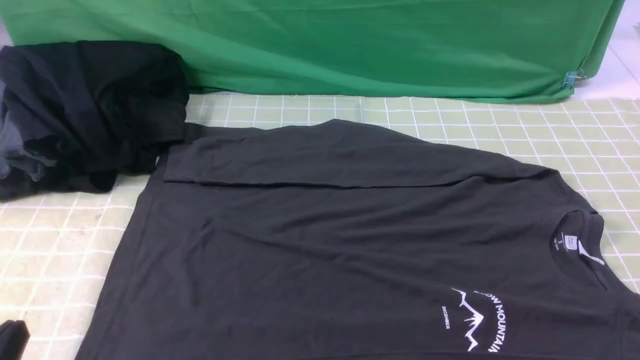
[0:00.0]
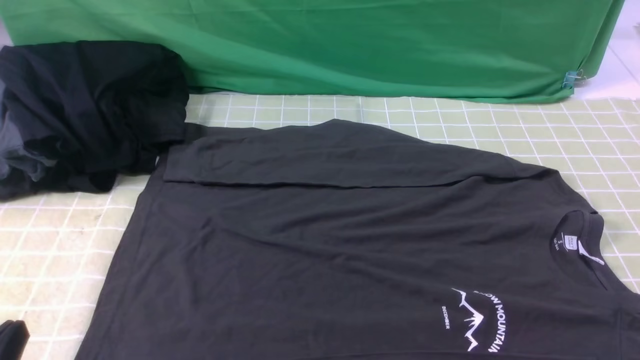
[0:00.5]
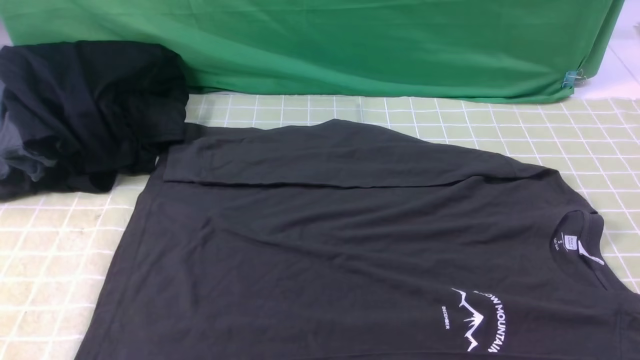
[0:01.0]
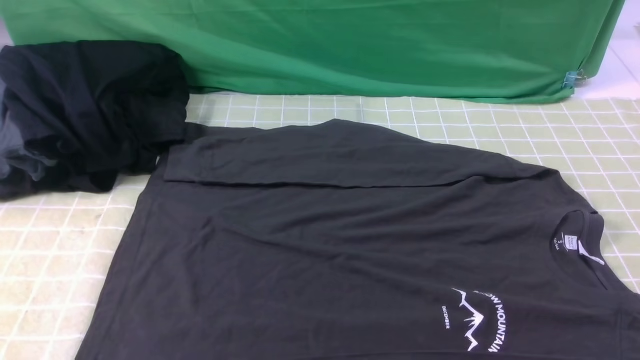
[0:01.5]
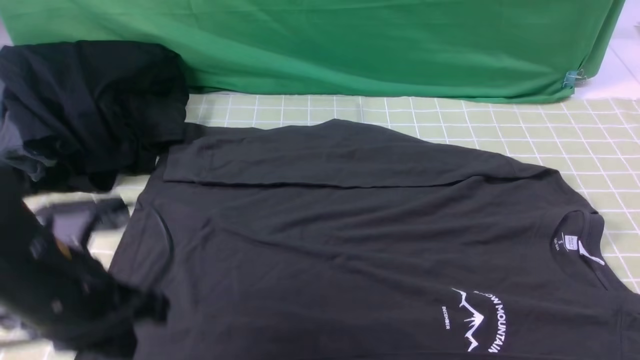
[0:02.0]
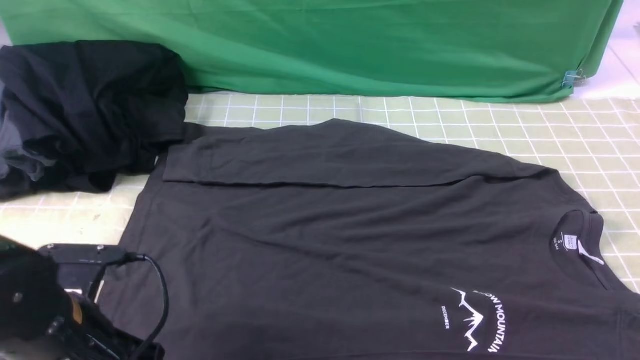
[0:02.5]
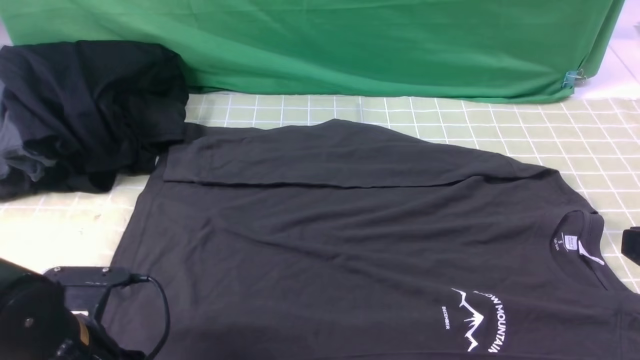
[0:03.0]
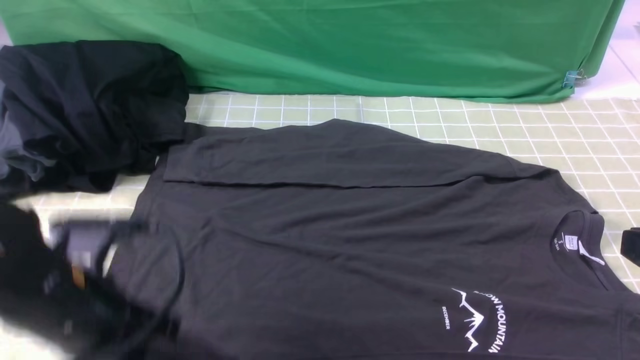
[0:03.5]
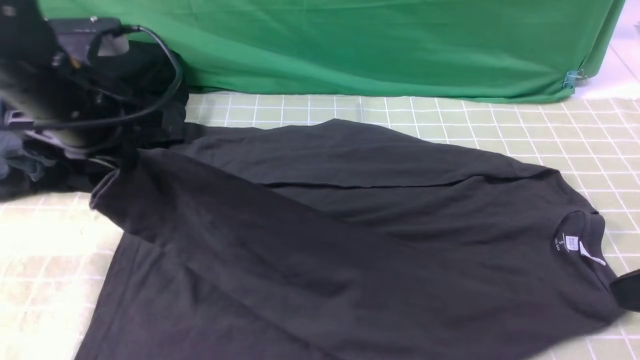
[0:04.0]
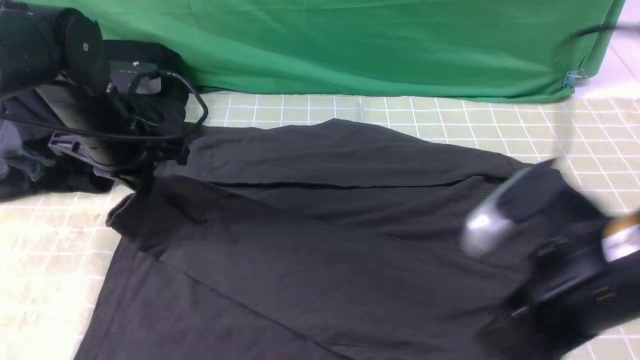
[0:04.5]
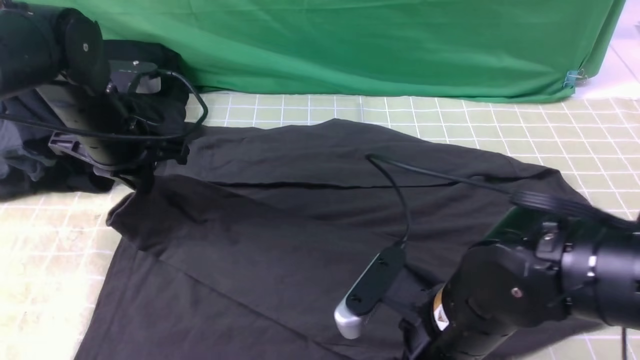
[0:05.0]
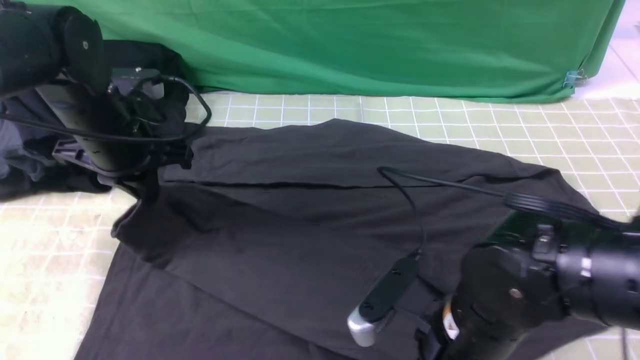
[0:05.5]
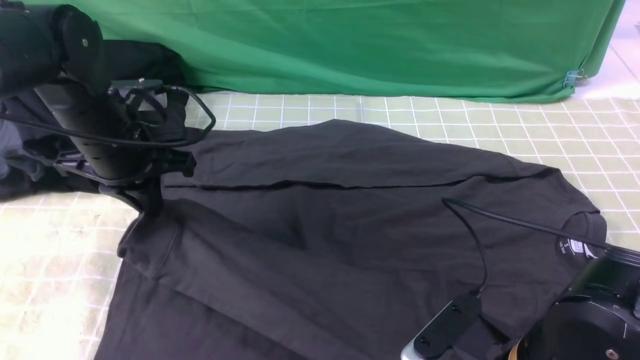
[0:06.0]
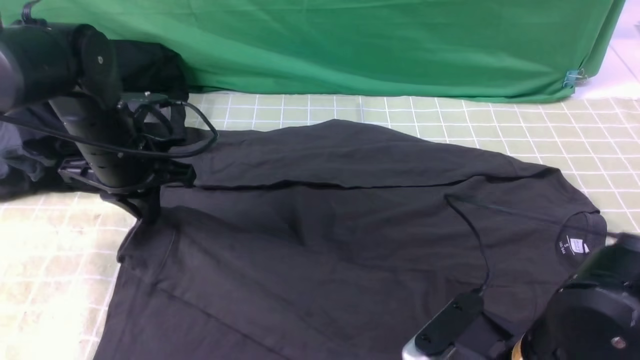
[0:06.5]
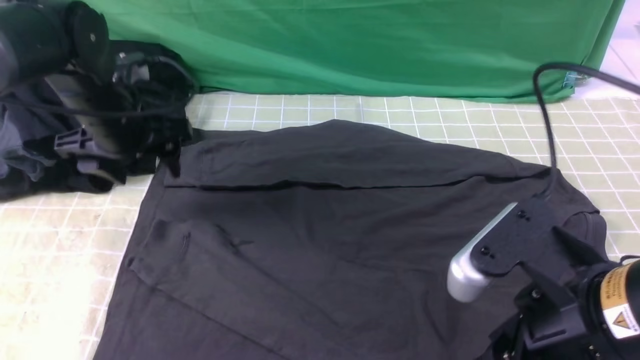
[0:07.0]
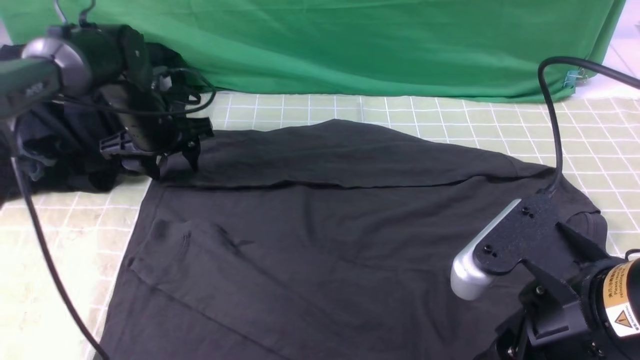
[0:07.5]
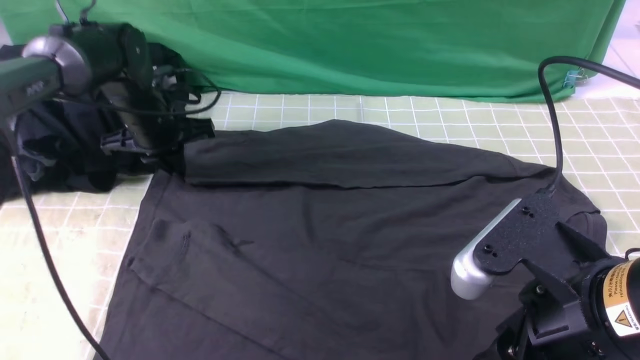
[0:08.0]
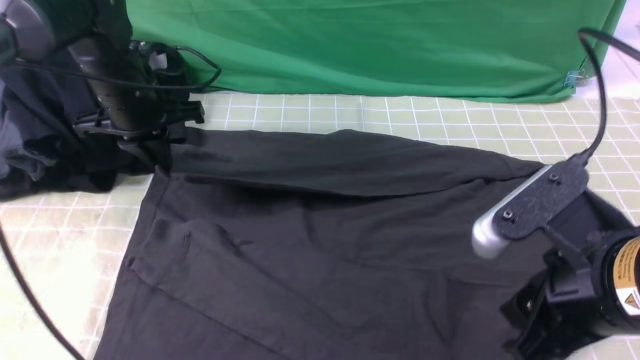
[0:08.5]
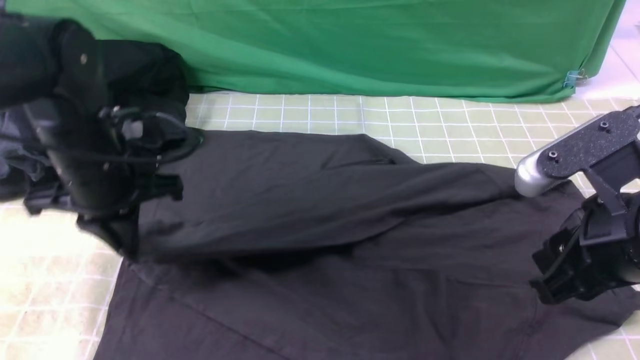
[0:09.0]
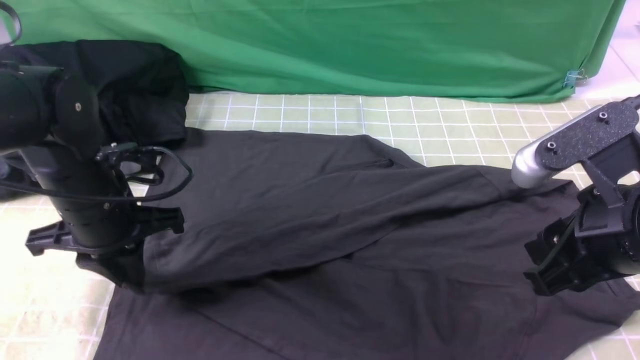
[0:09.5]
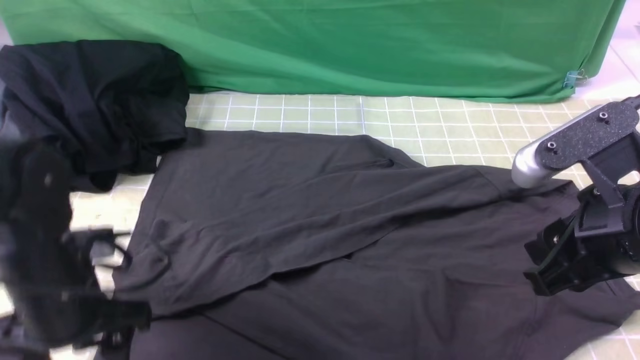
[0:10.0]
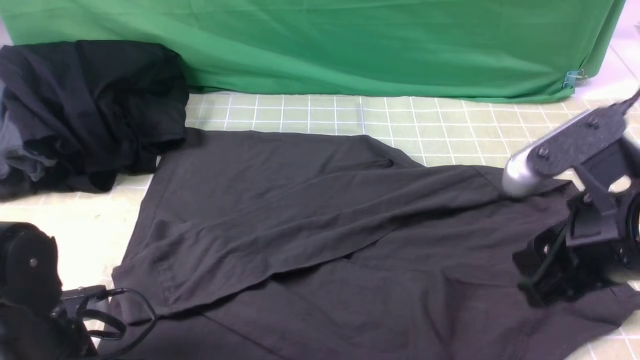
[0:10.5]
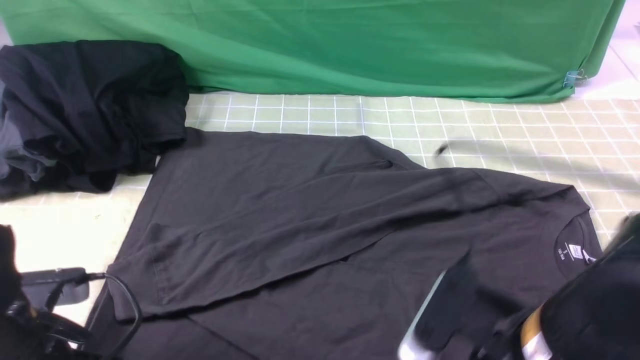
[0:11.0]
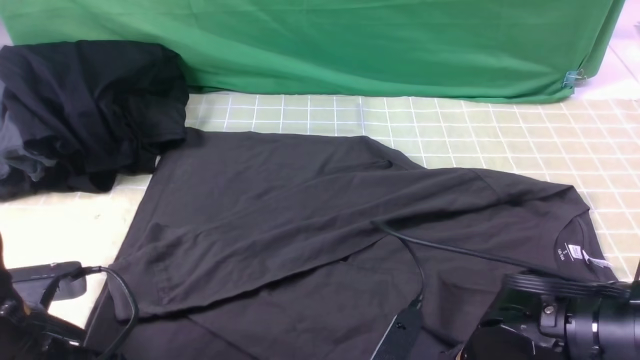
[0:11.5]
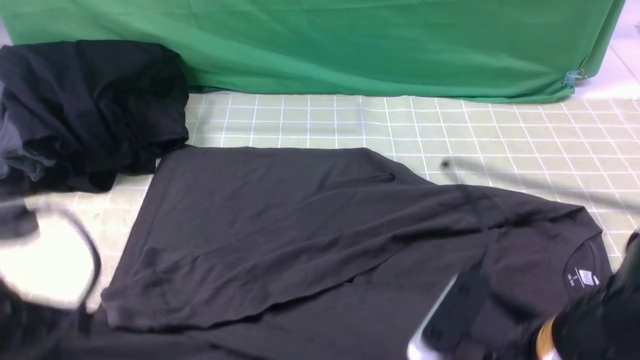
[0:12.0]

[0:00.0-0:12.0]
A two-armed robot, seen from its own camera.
Step, 0:00.0 to 0:03.0: use the left arm to clamp the cuff closest to it.
Step, 0:03.5 to 0:06.5: use the left arm to drag and place the cuff at the centered position on the left edge of the fabric.
Step, 0:07.0 to 0:07.5: use the left arm to clamp the cuff farthest from it.
Step, 0:08.0 to 0:09.5: use the left arm to drag and drop the cuff onto the cuff closest to the left arm.
Step, 0:10.0 to 0:11.0: use both arms simultaneously to clamp the lower edge of the clothing fabric.
0:00.0 to 0:02.0: The left gripper heads forward, covering some 15 cm, and reaches about 15 cm upward, then returns.
0:02.0 to 0:04.0: The right gripper is displaced forward, upward and to the left by about 15 cm; the left gripper heads forward and upward, covering roughly 15 cm, and opens, then closes once more.
0:04.0 to 0:06.0: The right gripper moves downward and to the left, roughly 20 cm, and opens, then closes once more; the left gripper shifts some 5 cm downward.
0:06.0 to 0:08.0: The right gripper is displaced upward by some 10 cm, and opens its fingers. Meanwhile the left gripper travels forward by about 10 cm, and opens, then closes once more.
0:08.0 to 0:10.0: The right gripper moves forward, some 5 cm, while the left gripper shifts some 25 cm backward, and opens its fingers.
0:10.0 to 0:12.0: The left gripper moves upward and backward, roughly 10 cm, and closes its fingers. Meanwhile the right gripper heads to the left and downward, covering approximately 10 cm, and closes up.

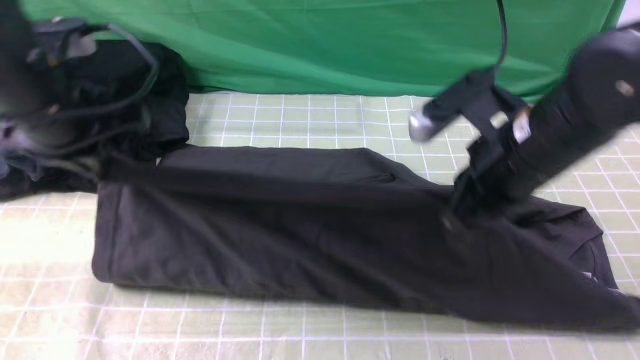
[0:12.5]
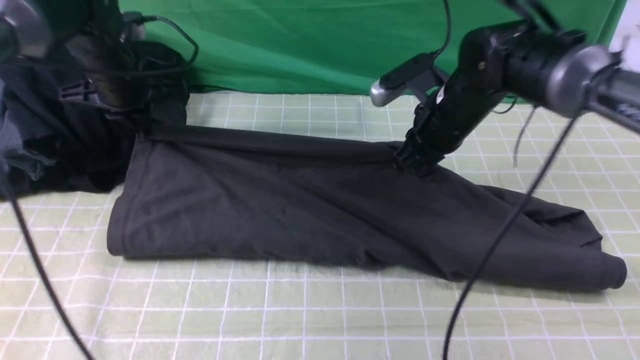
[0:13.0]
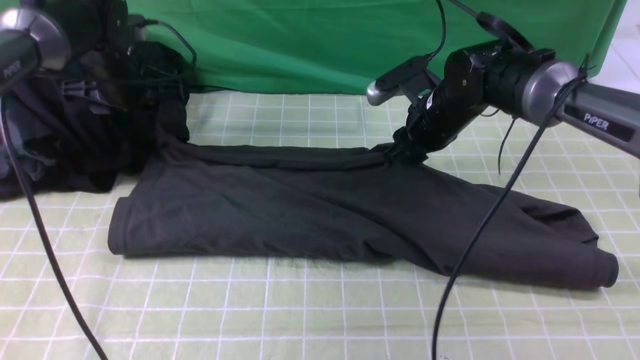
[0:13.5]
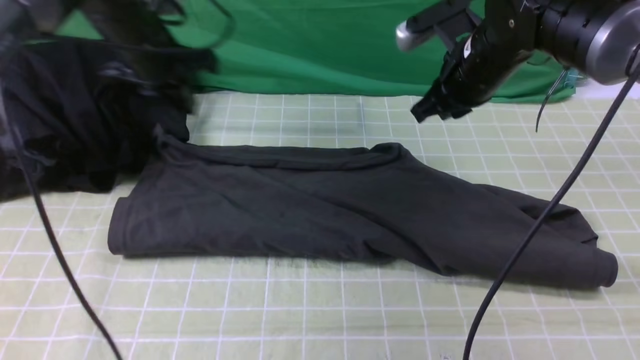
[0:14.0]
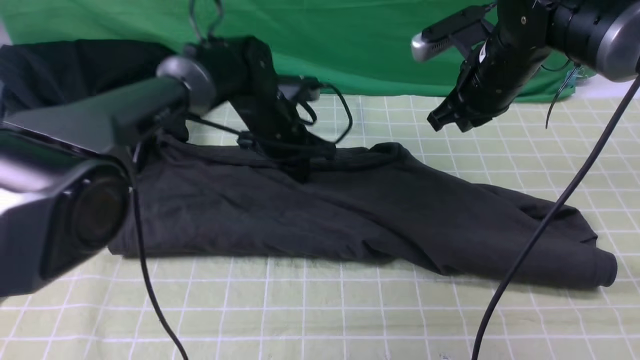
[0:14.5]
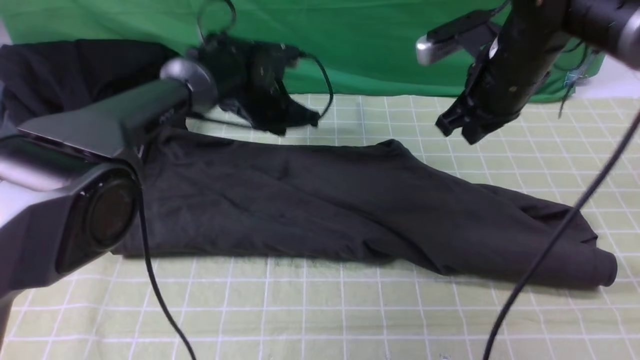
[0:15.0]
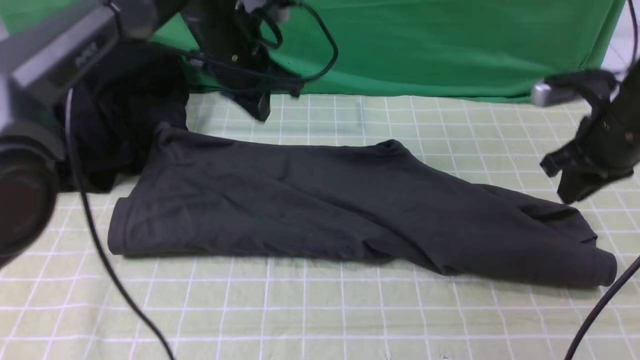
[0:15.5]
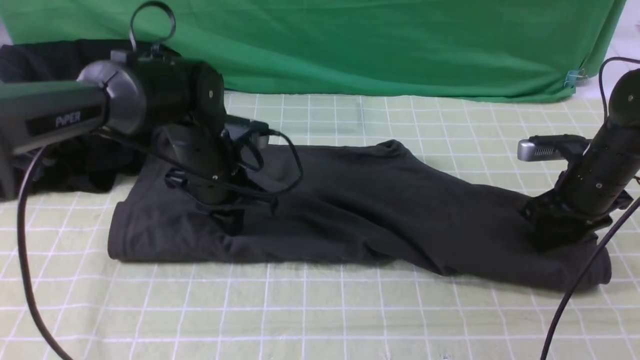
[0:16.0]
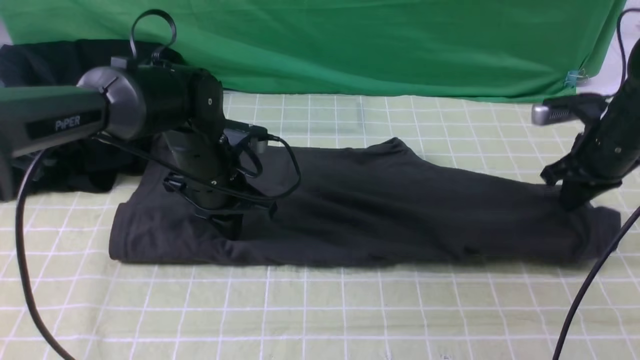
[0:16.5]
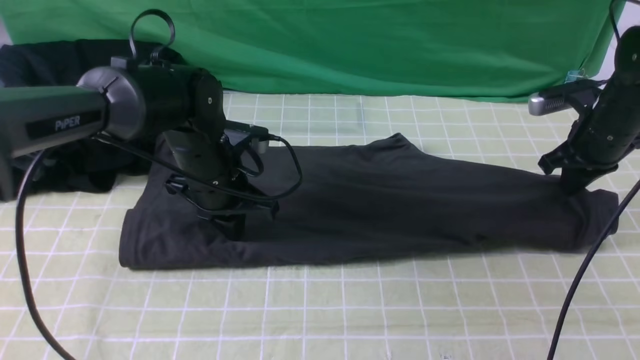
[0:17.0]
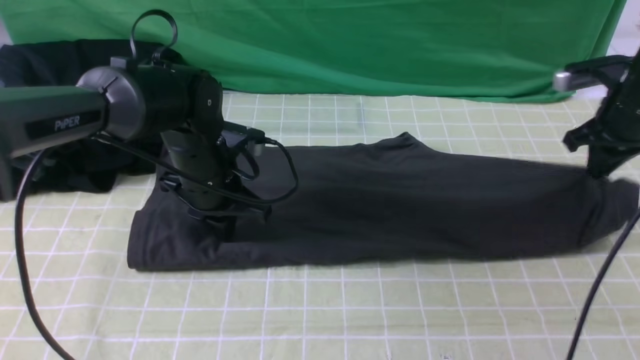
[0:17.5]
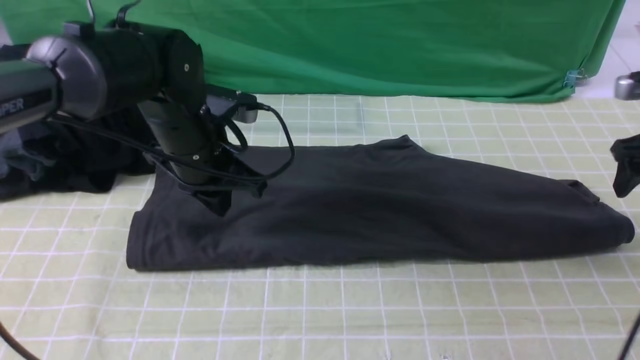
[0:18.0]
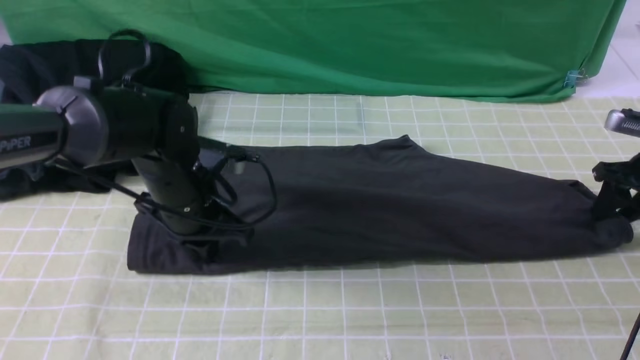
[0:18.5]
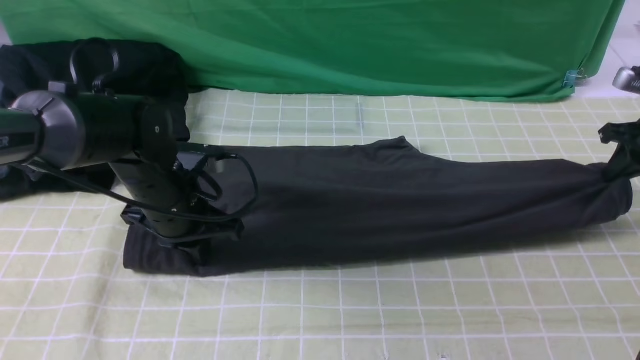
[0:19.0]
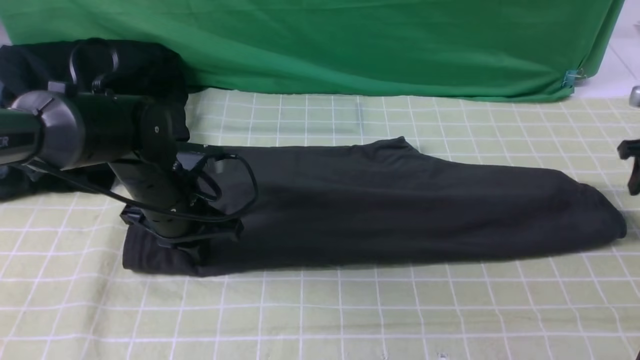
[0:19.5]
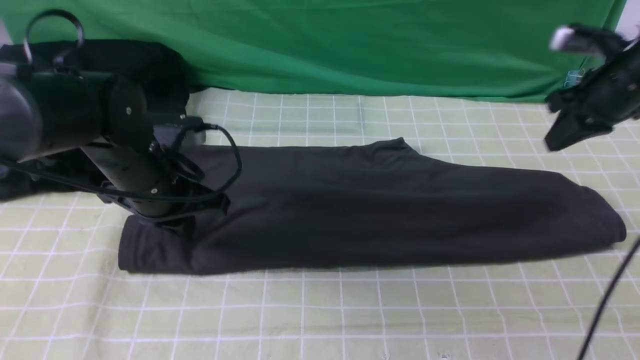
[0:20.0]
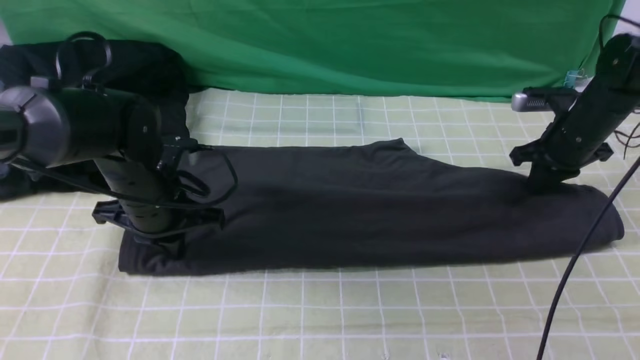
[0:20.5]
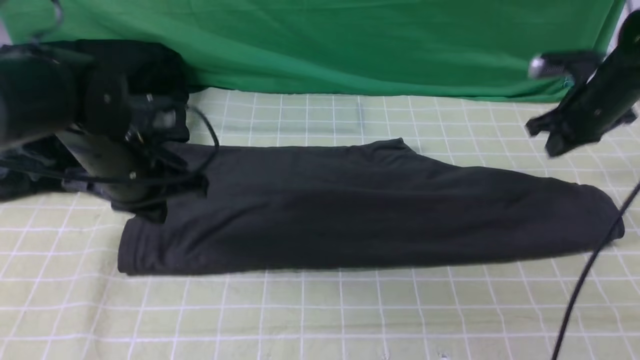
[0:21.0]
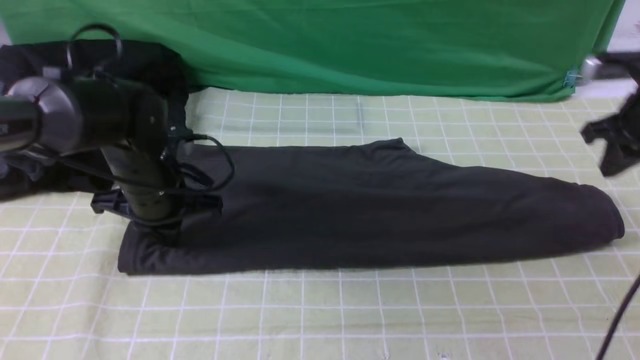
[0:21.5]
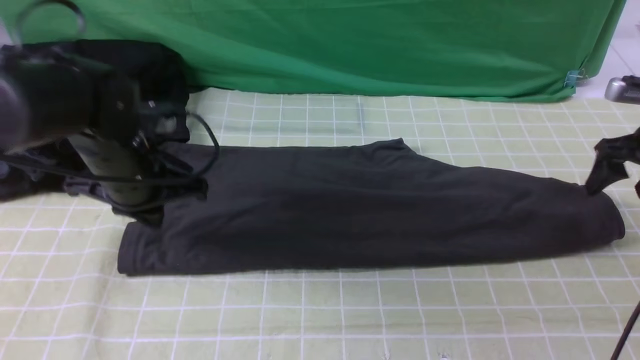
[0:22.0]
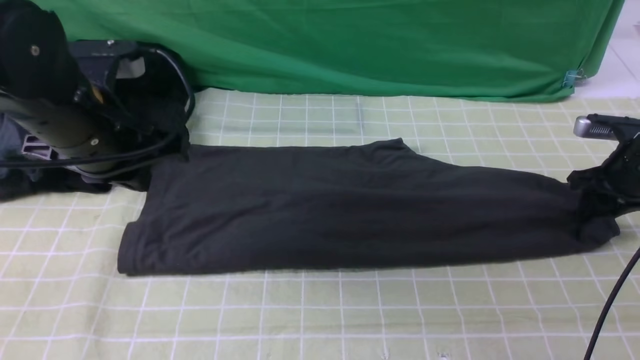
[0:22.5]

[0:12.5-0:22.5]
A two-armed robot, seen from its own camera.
Step, 0:12.5 to 0:13.5: use both arms to drag the lower edge of the fabric forward and fold it over the upper edge.
Step, 0:14.0 to 0:22.5: use the right arm to clamp the right edge of the fabric.
0:12.5 to 0:14.5: The right gripper moves forward, roughly 15 cm, and opens, then closes again. The left gripper goes some 25 cm to the right, forward and downward, and opens, then closes again.
0:14.5 to 0:16.5: The right gripper heads to the right and downward, covering approximately 15 cm, and opens, then closes once more. The left gripper heads backward and to the left, covering approximately 10 cm.
0:16.5 to 0:18.5: The right gripper goes roughly 10 cm to the right, and opens up.
0:18.5 to 0:20.5: The right gripper goes about 10 cm to the left, and closes its fingers.
0:20.5 to 0:22.5: The left gripper moves up and down over roughly 10 cm, changing direction 2 times, while the right gripper travels to the right by about 10 cm, moves approximately 5 cm upward and comes back, and opens its fingers.
